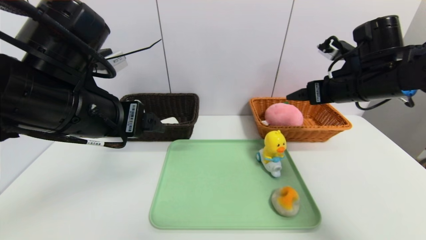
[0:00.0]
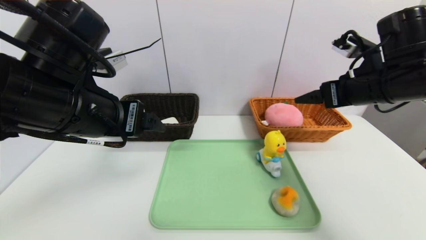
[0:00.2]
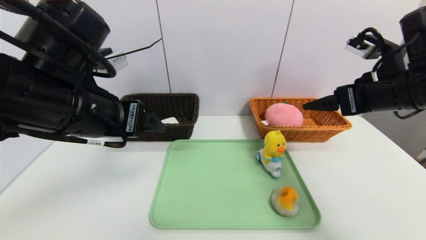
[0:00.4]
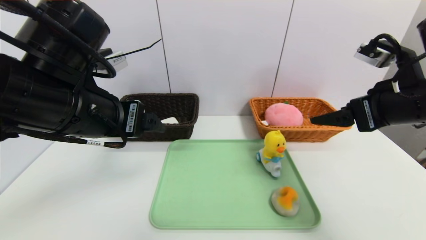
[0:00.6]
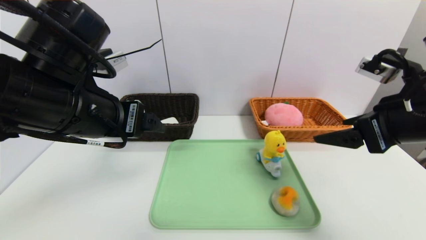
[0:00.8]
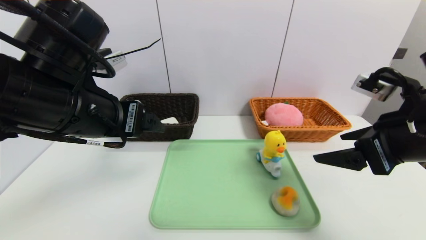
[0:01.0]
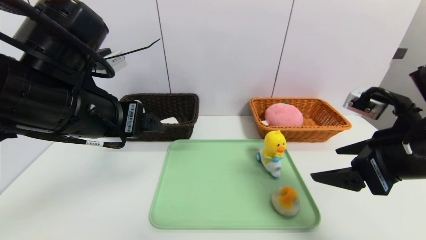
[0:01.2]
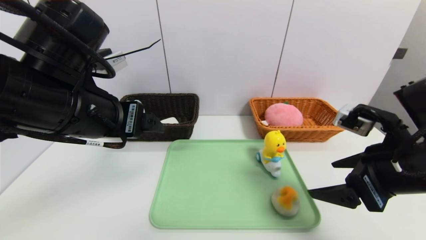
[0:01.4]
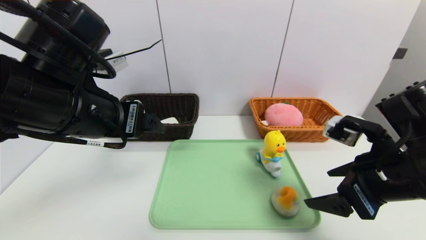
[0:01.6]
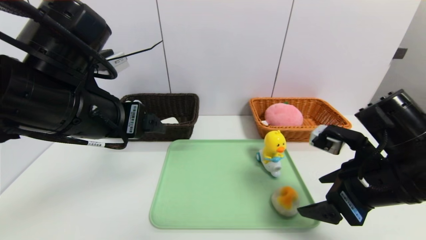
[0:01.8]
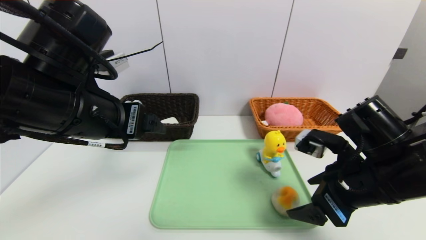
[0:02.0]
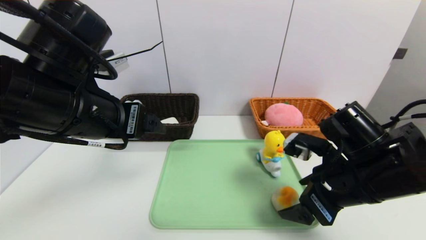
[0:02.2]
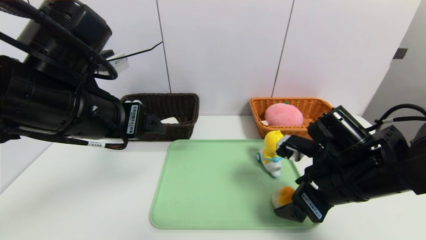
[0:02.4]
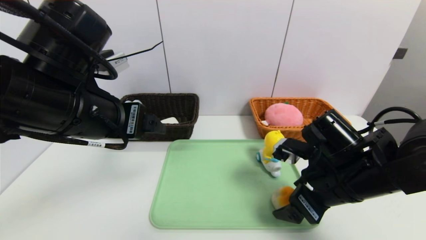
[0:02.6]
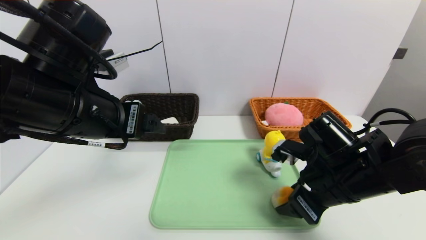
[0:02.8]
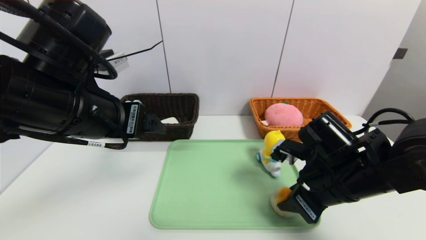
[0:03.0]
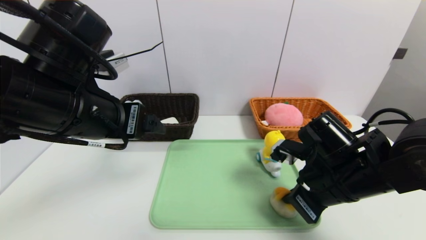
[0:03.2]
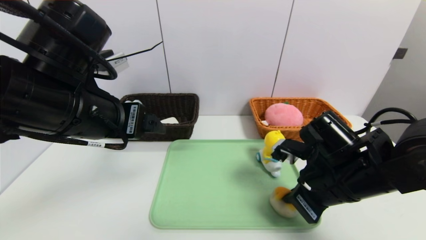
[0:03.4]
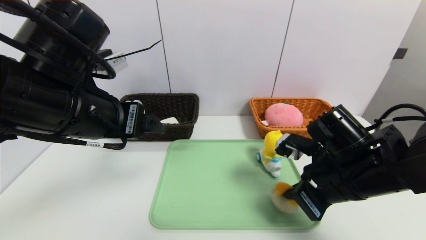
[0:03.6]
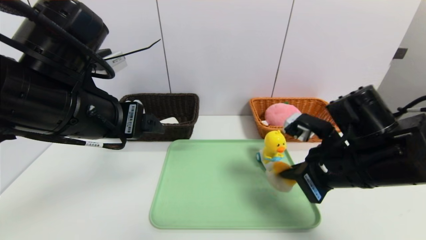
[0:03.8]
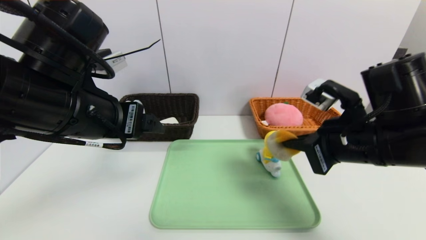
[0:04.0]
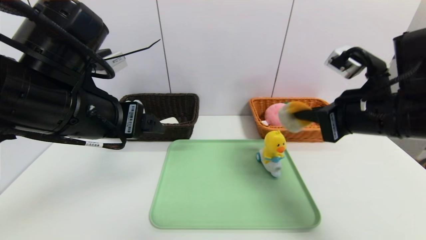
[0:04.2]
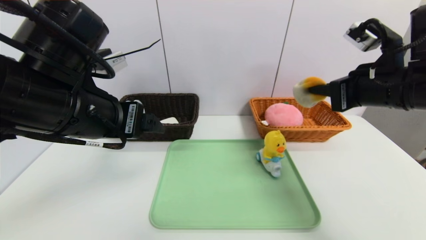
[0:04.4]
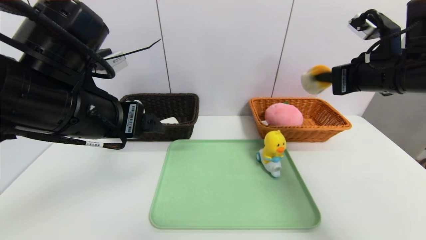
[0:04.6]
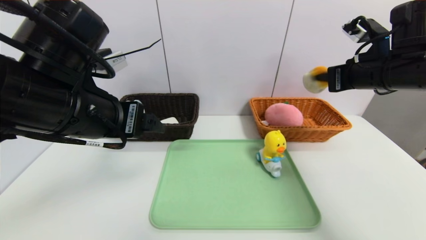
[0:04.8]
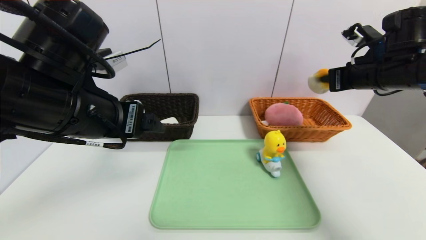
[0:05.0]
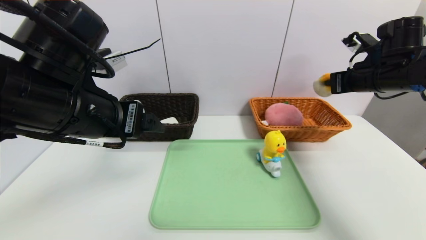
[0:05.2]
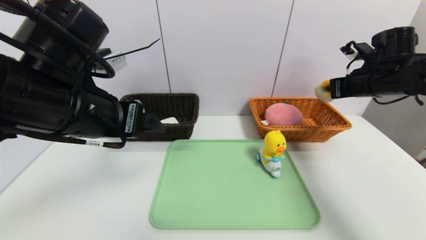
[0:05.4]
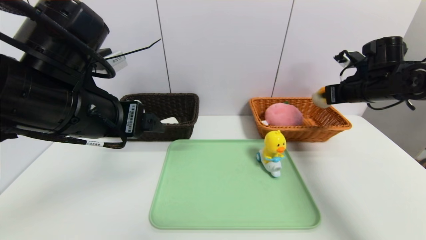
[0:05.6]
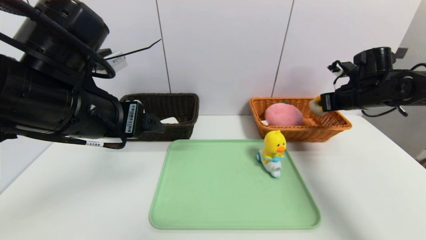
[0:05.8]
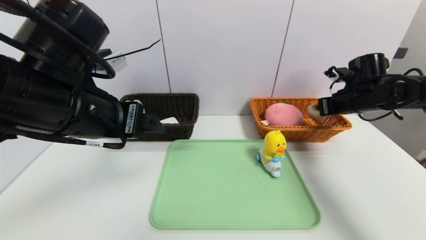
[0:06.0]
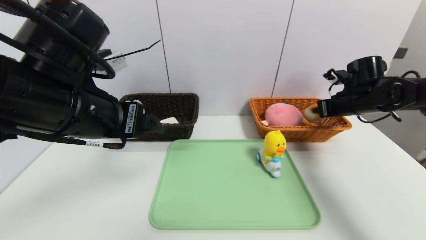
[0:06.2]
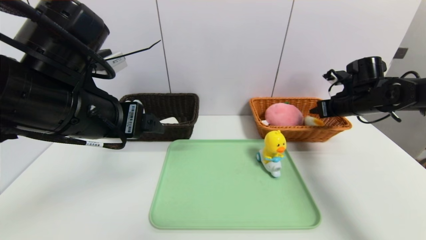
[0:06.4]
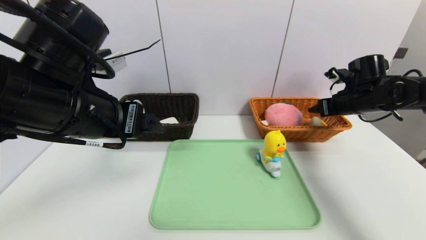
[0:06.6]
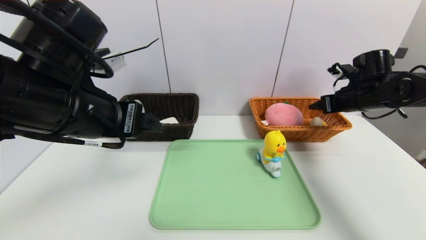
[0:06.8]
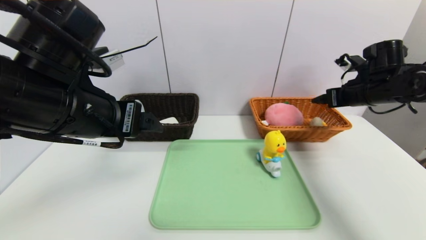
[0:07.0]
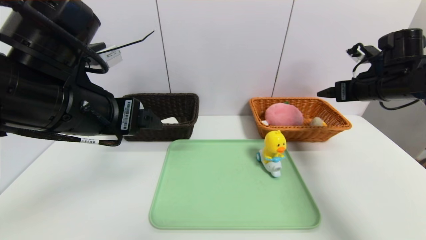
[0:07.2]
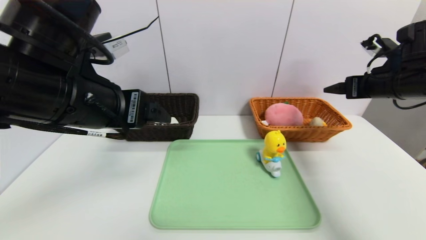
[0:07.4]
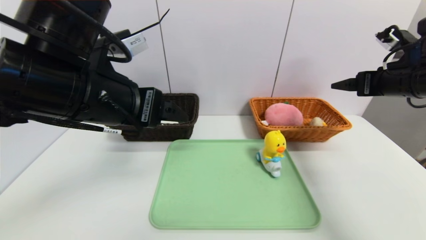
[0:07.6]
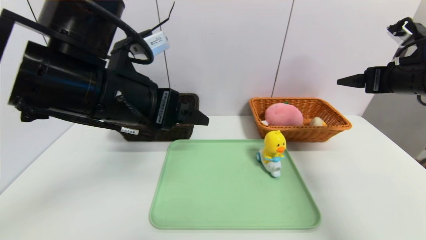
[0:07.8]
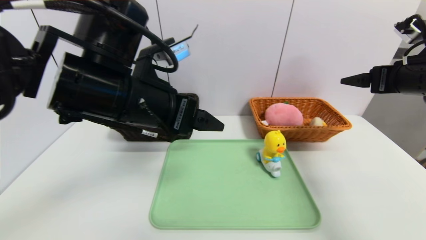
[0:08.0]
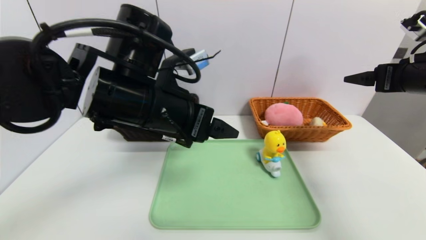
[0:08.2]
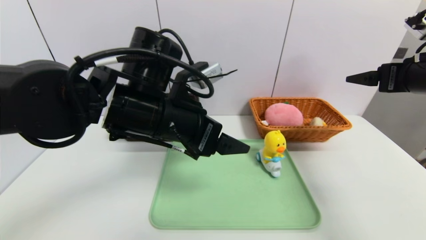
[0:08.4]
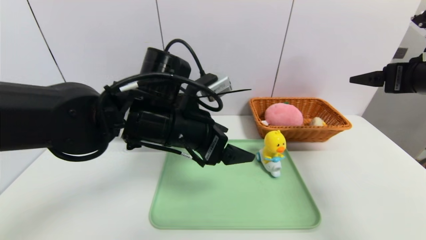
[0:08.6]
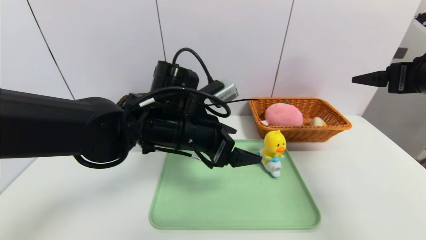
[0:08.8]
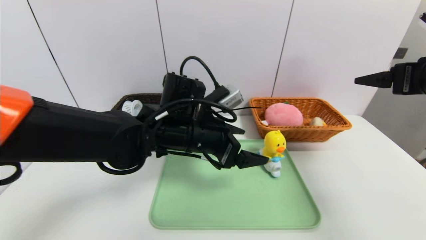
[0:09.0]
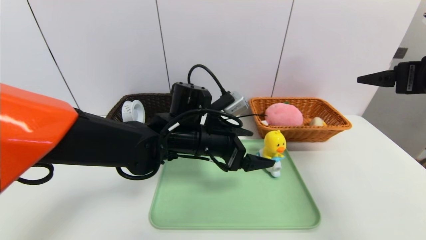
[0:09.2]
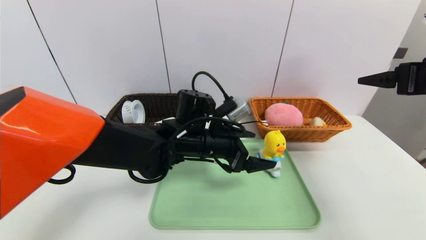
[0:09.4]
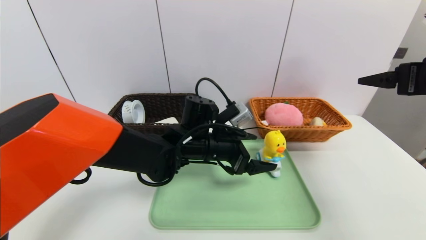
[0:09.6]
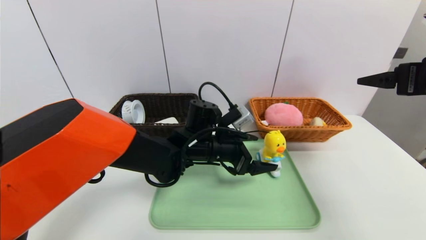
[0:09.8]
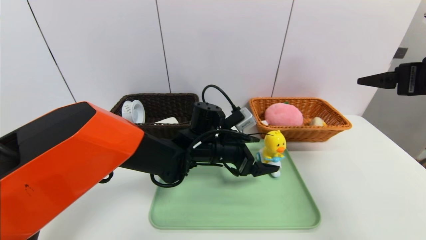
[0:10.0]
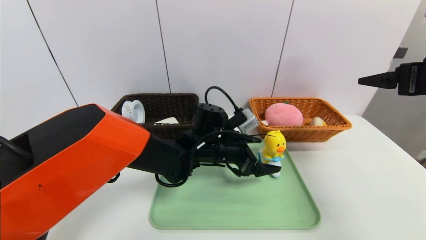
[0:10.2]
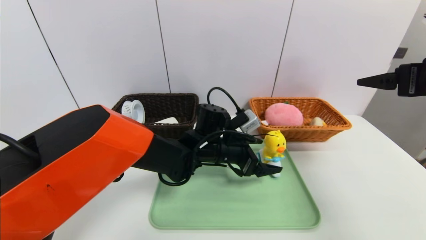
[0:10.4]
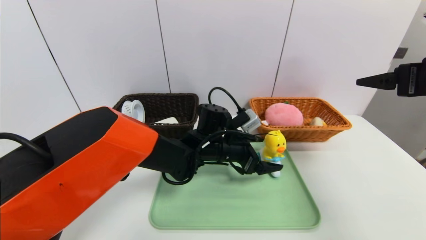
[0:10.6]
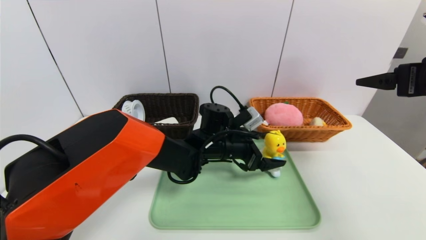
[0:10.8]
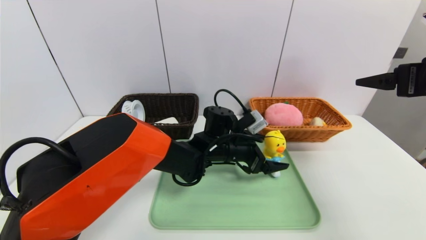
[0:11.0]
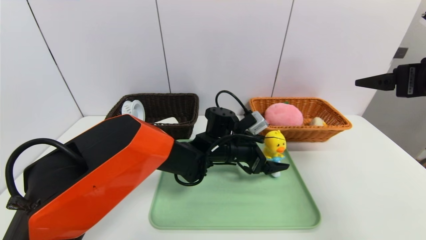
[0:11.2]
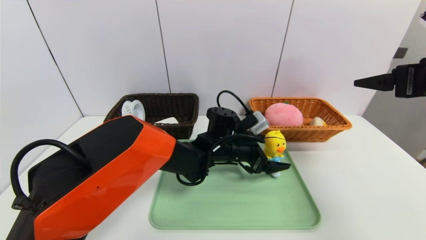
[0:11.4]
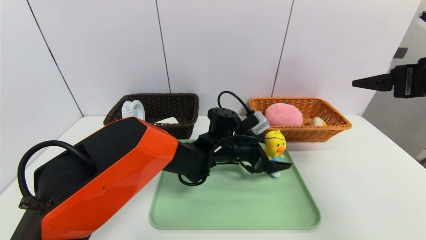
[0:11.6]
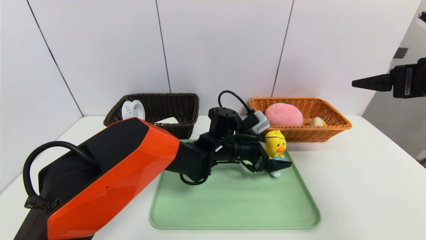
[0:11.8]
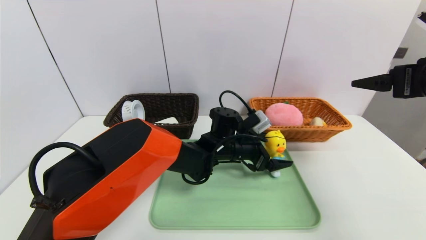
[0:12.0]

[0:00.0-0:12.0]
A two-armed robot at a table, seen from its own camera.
Task of the whole recording: place the food in the right basket with the right gripper, and place the non food items in the left basket with the left gripper.
Step, 0:00.0 to 0:06.8: Grasp the egg yolk pastry and put it in the right basket.
0:00.0 to 0:01.6: The right gripper goes about 15 cm backward and downward.
0:01.6 to 0:03.0: The right gripper moves downward and to the left, about 10 cm, and closes its fingers.
0:03.0 to 0:04.4: The right gripper is displaced upward and to the right by about 15 cm, and closes.
0:04.4 to 0:06.0: The right gripper goes some 20 cm forward, downward and to the right.
0:06.0 to 0:07.6: The right gripper is displaced backward and upward by some 15 cm, and opens.
0:07.6 to 0:09.0: The left gripper moves downward, to the right and forward, some 15 cm. The right gripper heads backward, covering some 5 cm.
0:09.0 to 0:10.4: The left gripper shifts some 10 cm downward and to the right.

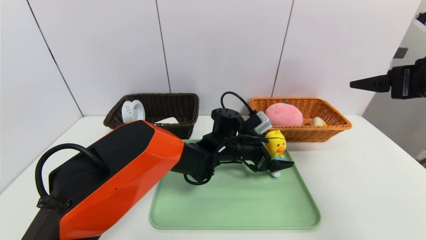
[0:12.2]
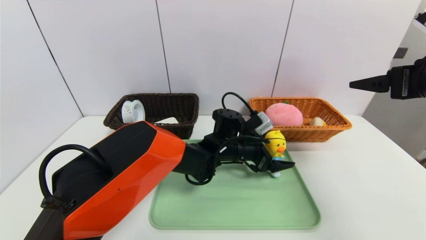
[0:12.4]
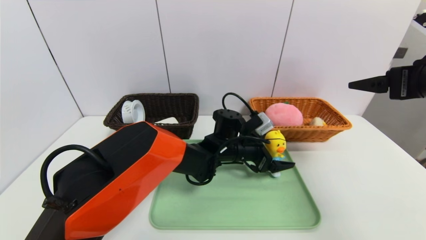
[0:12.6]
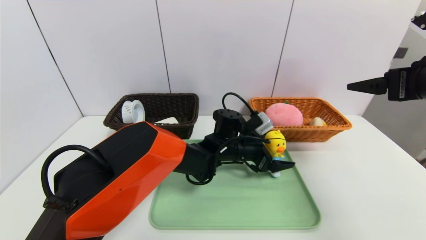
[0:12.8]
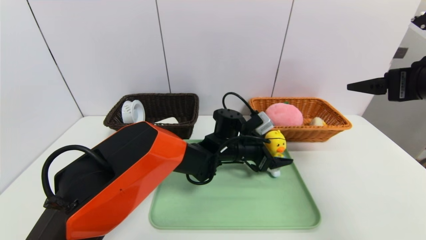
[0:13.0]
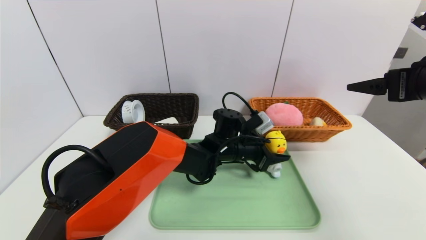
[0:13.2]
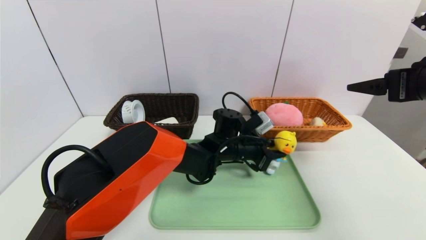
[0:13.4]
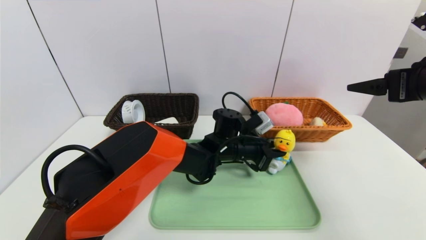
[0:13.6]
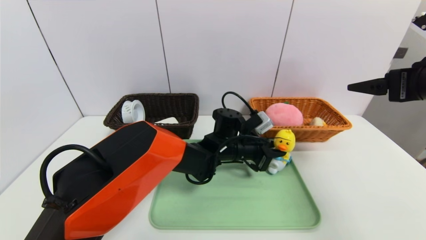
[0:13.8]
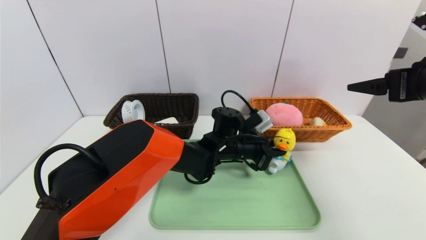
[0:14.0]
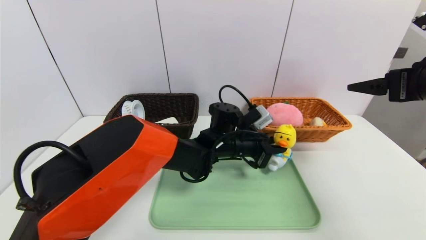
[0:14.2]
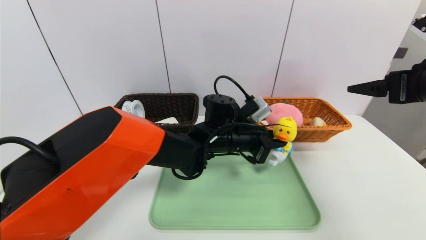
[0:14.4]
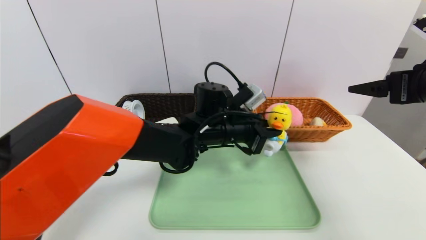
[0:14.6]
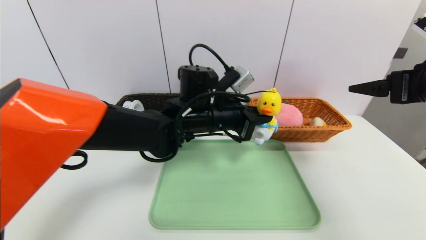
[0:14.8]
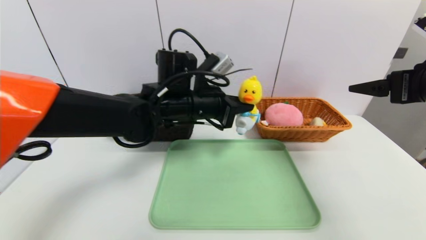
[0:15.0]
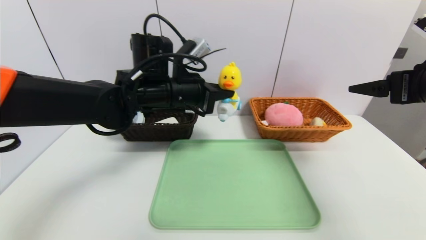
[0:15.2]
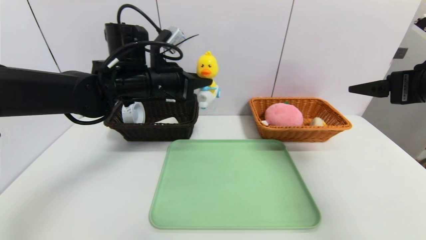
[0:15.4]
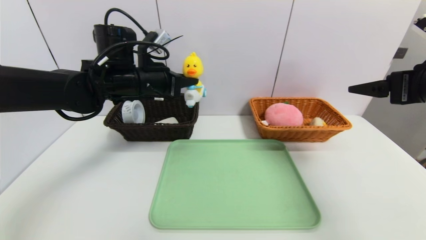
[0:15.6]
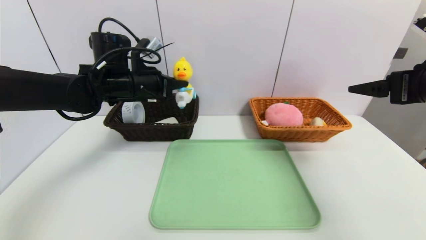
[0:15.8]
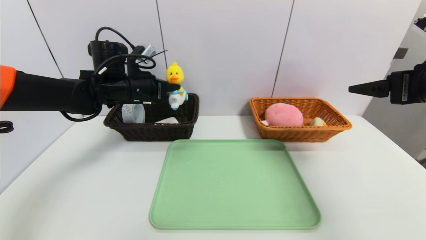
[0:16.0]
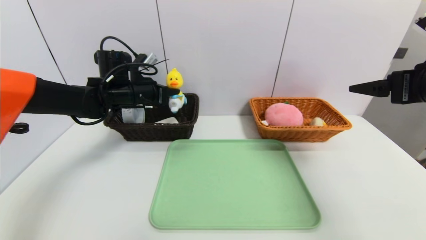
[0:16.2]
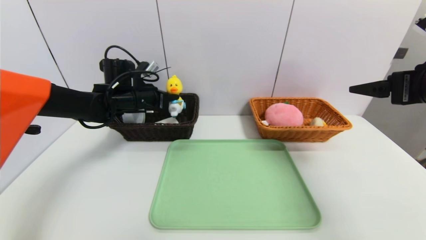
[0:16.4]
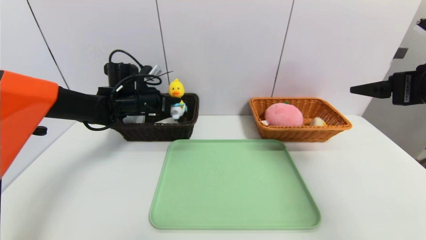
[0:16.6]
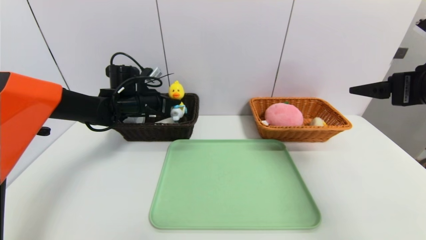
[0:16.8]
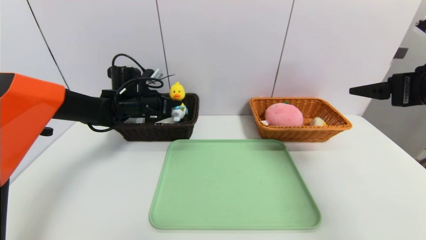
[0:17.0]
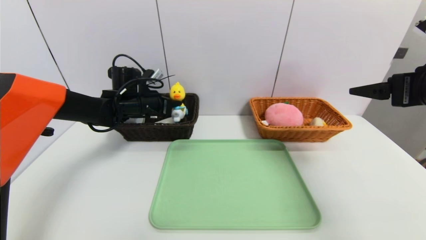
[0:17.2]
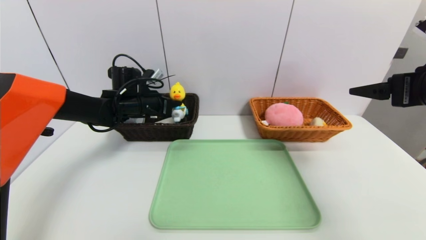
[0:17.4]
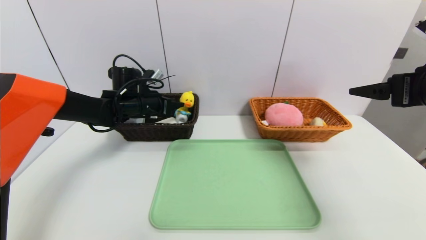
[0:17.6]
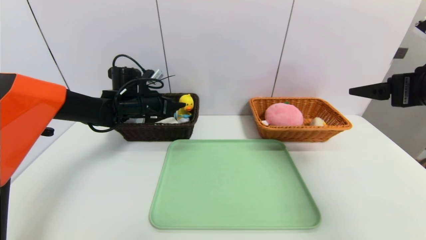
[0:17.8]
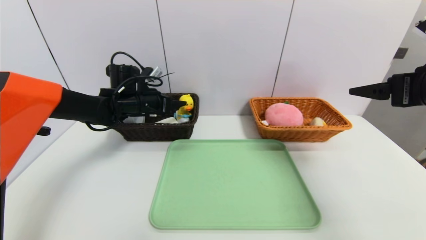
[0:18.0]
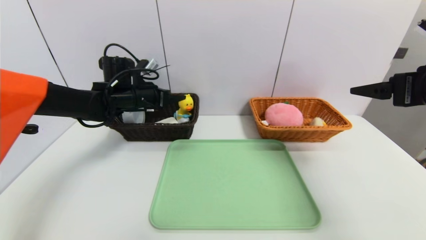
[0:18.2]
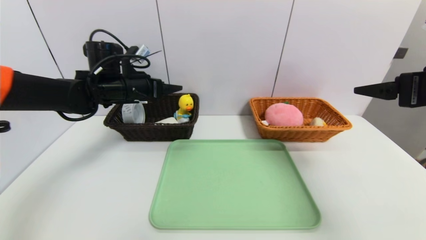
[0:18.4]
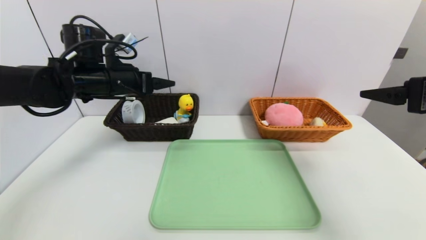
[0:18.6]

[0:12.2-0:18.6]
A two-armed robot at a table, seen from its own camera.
Task of the whole recording: place the food in the right basket with the right gripper, and place the non food items in the left basket with the left gripper.
Step, 0:12.2 to 0:18.2: Grasp the duck toys and put it in the left basket.
0:12.2 to 0:13.8: The left gripper closes up.
0:13.8 to 0:15.4: The left gripper travels to the left and upward by about 25 cm.
0:15.4 to 0:17.0: The left gripper shifts approximately 15 cm downward, forward and to the left.
0:17.0 to 0:18.6: The left gripper shifts roughly 10 cm upward and backward, and opens.
